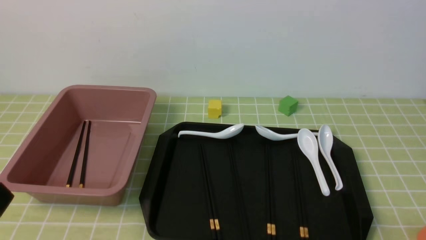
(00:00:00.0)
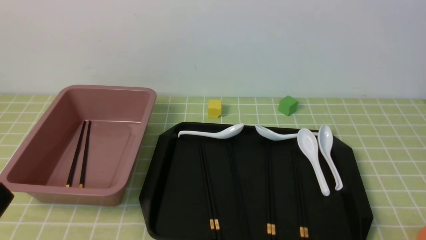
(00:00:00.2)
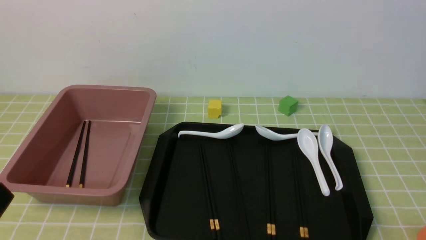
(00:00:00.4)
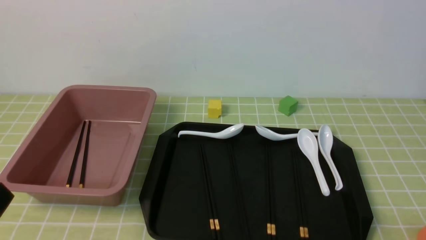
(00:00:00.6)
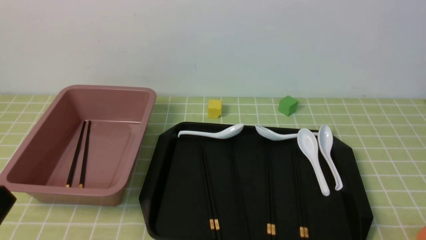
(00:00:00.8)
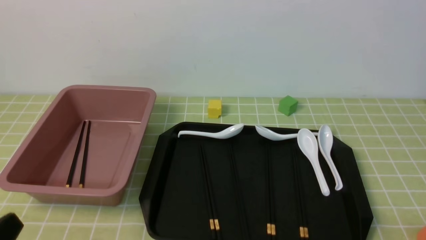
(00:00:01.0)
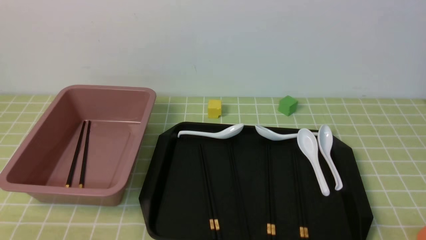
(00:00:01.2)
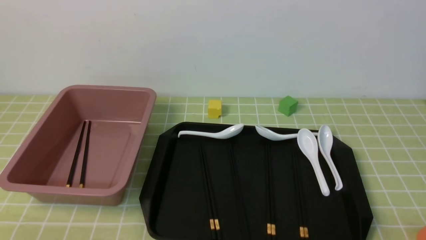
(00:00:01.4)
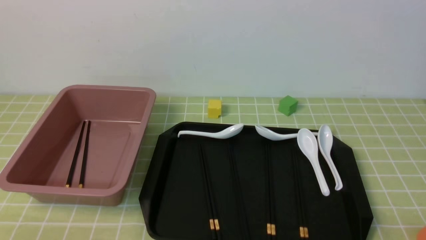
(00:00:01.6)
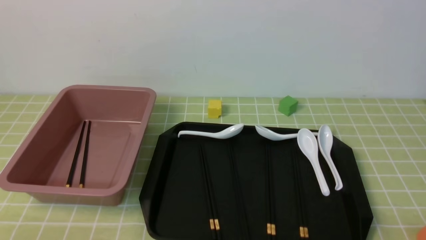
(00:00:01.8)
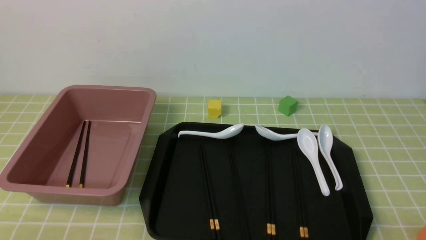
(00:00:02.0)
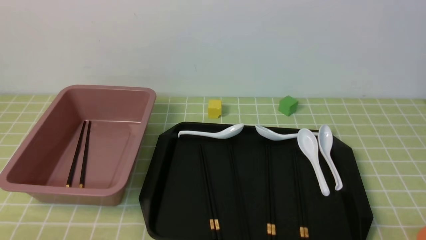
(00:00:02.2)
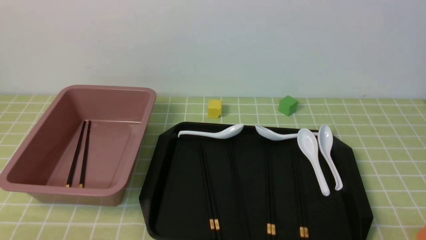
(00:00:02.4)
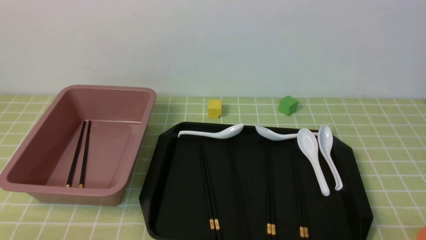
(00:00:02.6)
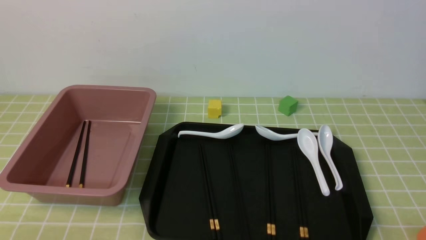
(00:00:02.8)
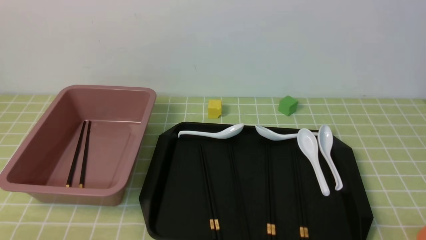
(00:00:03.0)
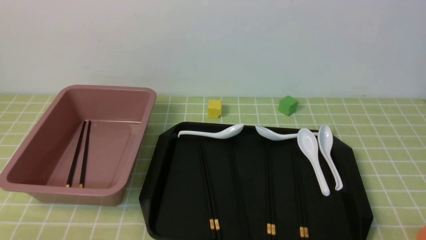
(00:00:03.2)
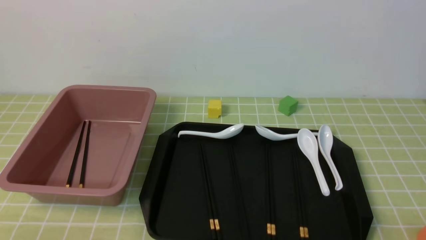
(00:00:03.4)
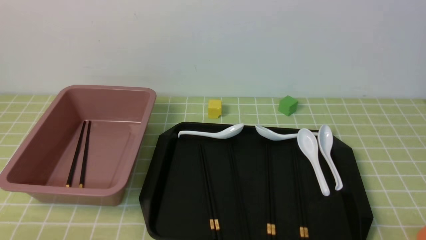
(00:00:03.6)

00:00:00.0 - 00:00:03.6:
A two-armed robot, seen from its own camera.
00:00:01.8 - 00:00:03.6: Both grippers stay put.
